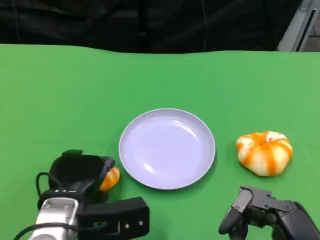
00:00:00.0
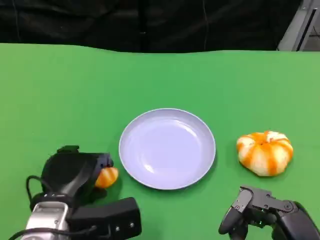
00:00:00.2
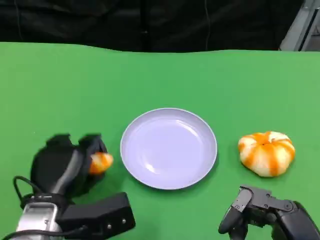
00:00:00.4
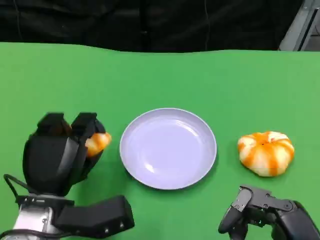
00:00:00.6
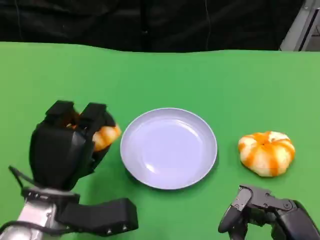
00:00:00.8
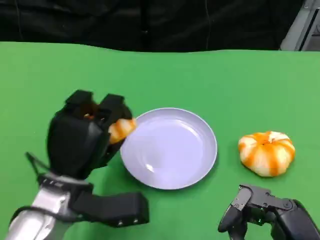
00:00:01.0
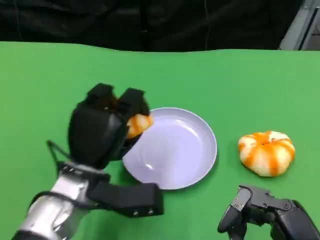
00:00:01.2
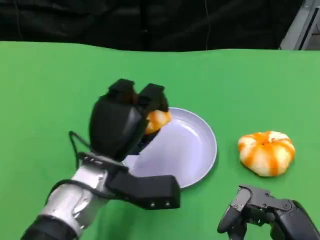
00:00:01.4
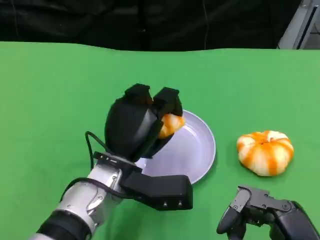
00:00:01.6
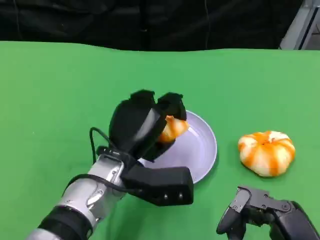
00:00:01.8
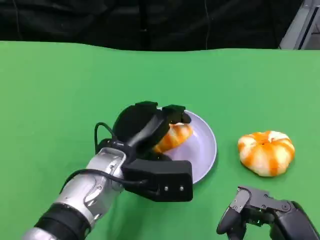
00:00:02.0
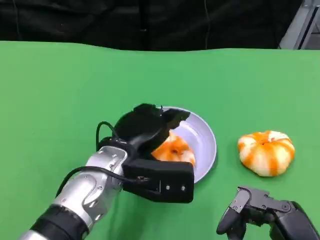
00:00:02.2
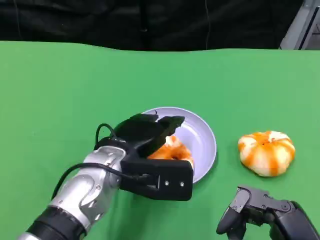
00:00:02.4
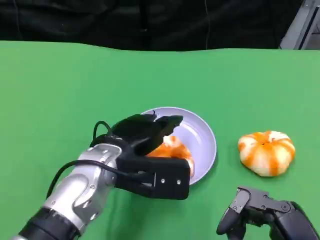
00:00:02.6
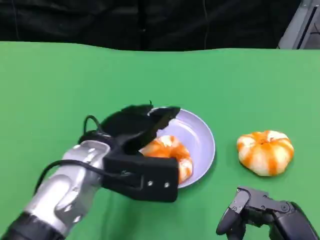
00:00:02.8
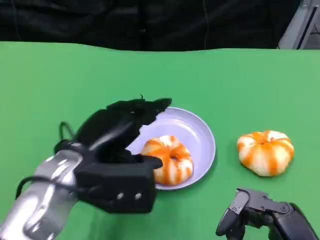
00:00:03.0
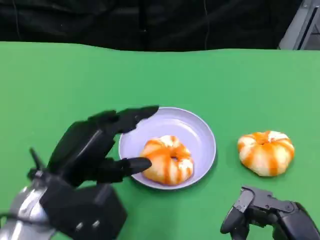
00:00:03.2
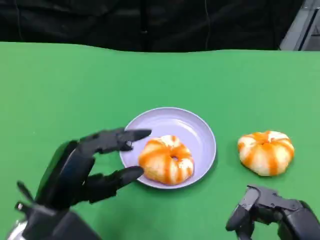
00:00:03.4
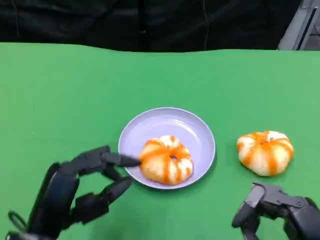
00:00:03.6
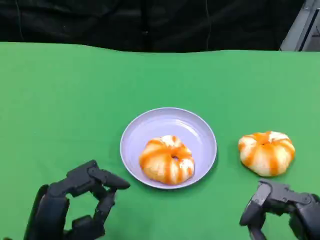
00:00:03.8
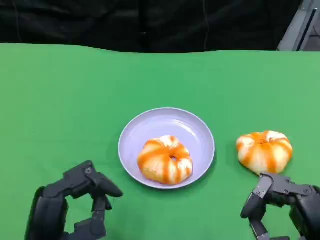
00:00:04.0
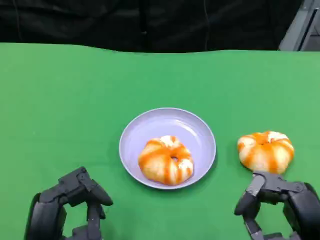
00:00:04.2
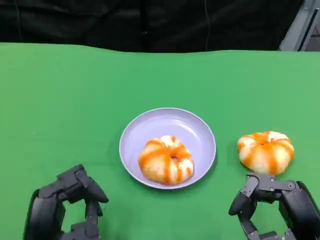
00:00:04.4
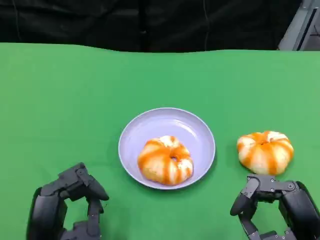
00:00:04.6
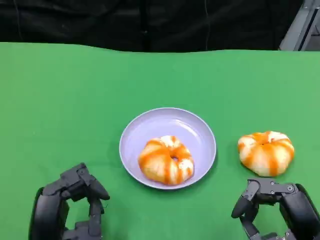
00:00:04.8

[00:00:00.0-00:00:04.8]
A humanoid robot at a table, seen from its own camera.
Task of the whole recording: Grasp the bread from the table and place it into the plate.
00:00:00.0 to 00:00:01.6: The left hand goes some 10 cm to the right.
00:00:01.6 to 00:00:03.2: The left hand travels to the left and backward by about 10 cm.
00:00:03.2 to 00:00:04.8: The right hand changes place by about 5 cm. Meanwhile the left hand travels downward by about 10 cm.

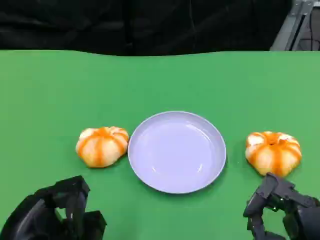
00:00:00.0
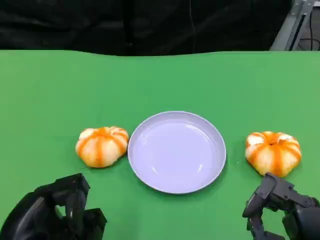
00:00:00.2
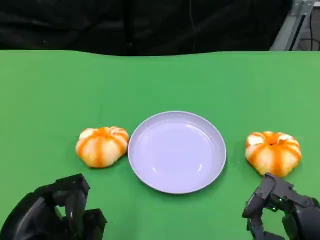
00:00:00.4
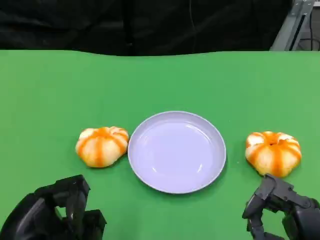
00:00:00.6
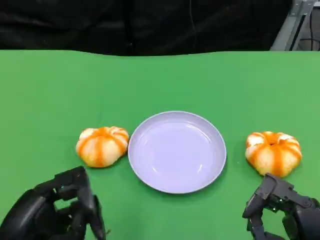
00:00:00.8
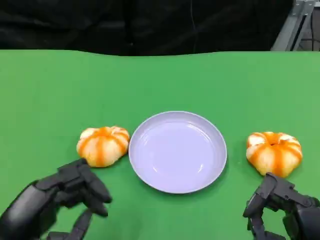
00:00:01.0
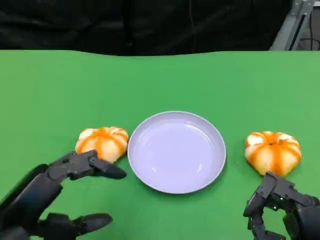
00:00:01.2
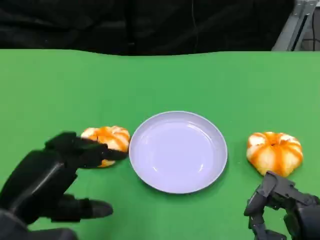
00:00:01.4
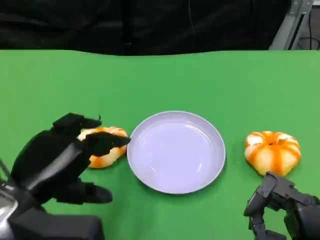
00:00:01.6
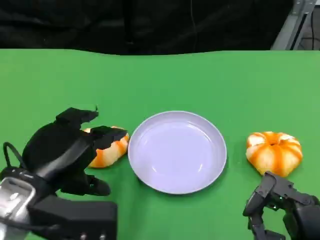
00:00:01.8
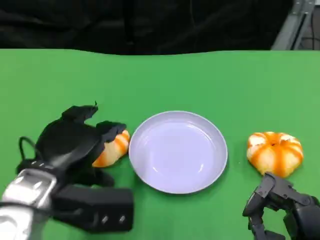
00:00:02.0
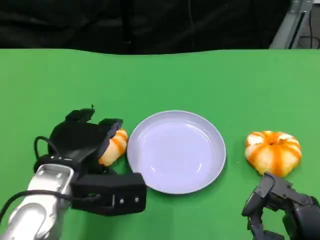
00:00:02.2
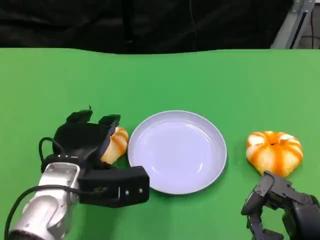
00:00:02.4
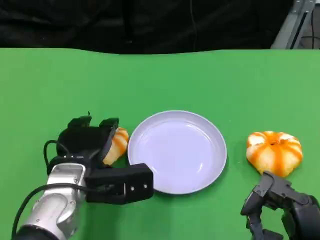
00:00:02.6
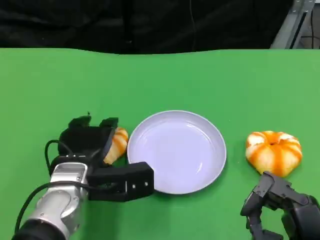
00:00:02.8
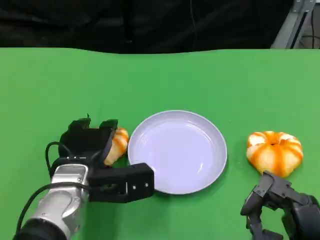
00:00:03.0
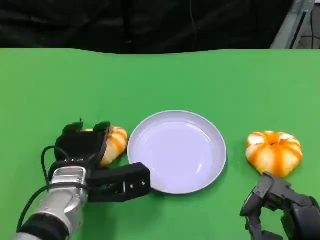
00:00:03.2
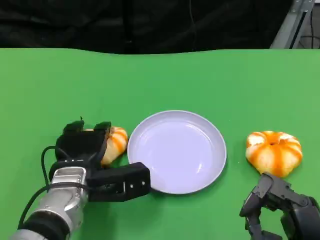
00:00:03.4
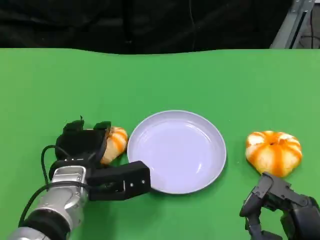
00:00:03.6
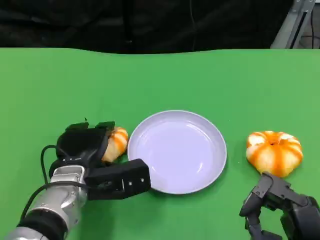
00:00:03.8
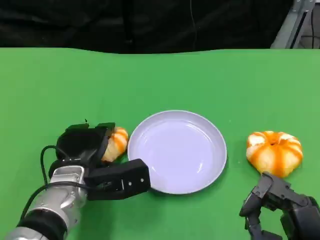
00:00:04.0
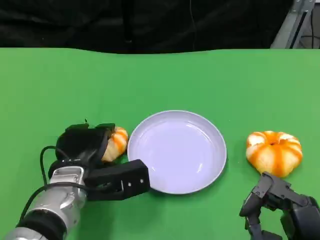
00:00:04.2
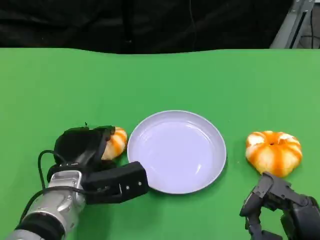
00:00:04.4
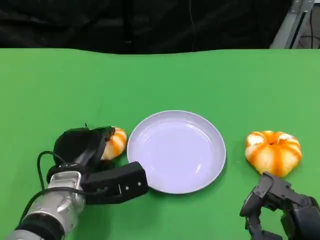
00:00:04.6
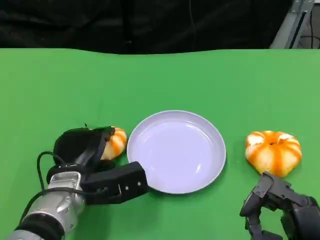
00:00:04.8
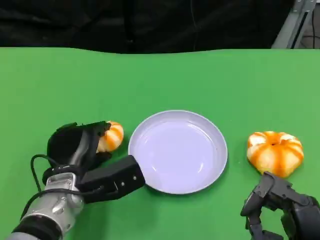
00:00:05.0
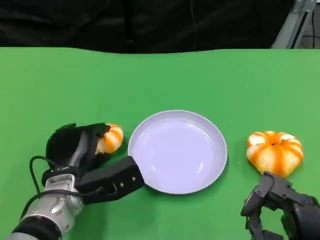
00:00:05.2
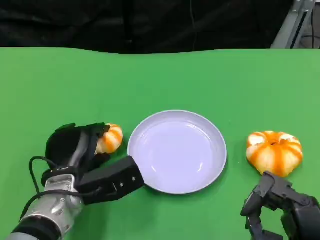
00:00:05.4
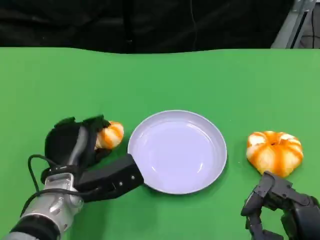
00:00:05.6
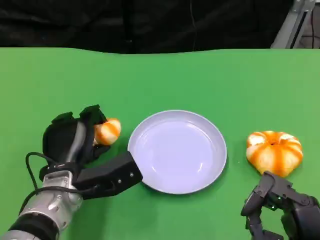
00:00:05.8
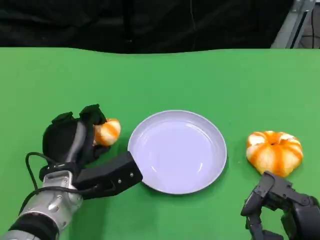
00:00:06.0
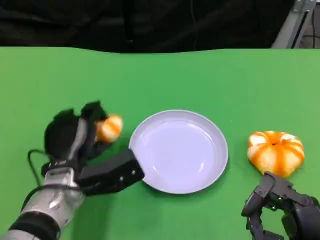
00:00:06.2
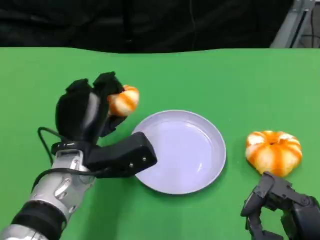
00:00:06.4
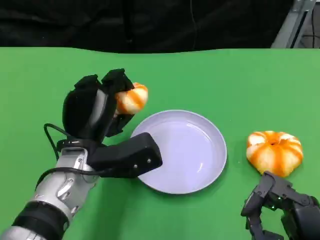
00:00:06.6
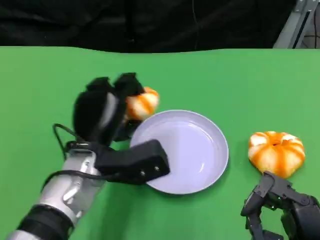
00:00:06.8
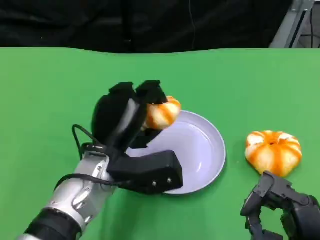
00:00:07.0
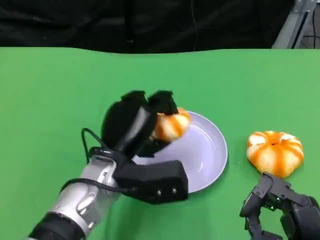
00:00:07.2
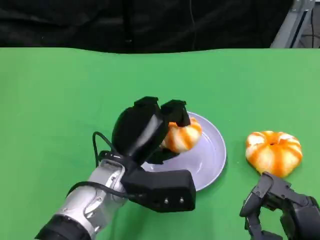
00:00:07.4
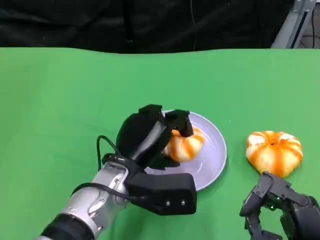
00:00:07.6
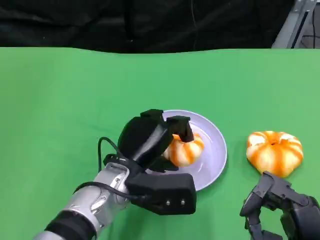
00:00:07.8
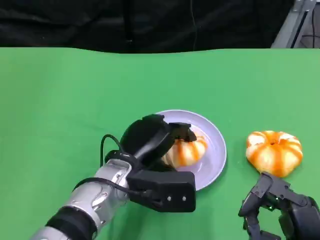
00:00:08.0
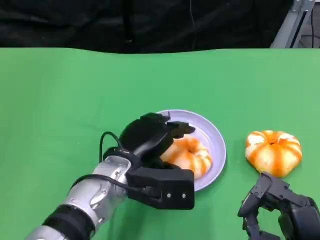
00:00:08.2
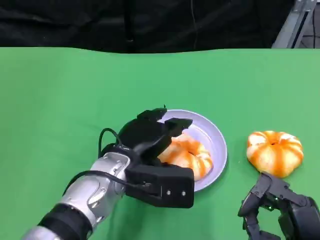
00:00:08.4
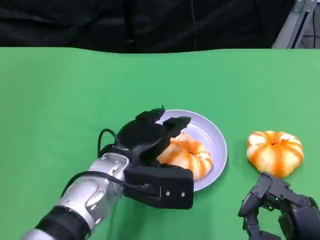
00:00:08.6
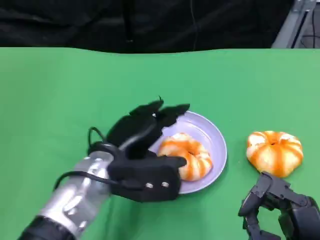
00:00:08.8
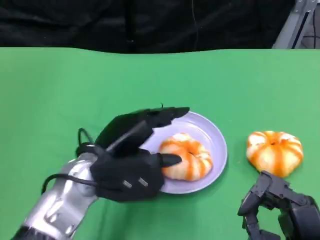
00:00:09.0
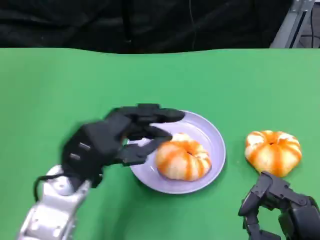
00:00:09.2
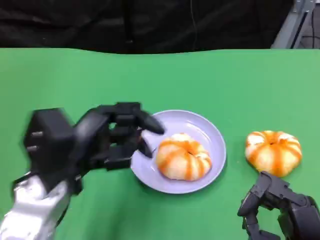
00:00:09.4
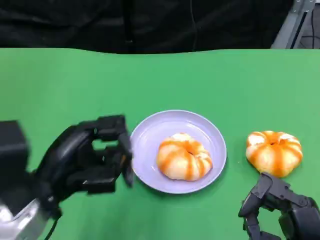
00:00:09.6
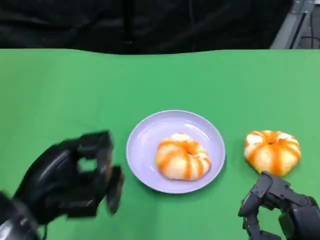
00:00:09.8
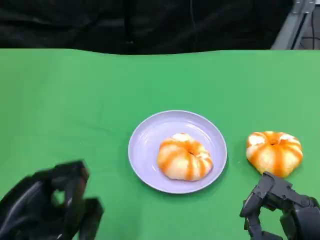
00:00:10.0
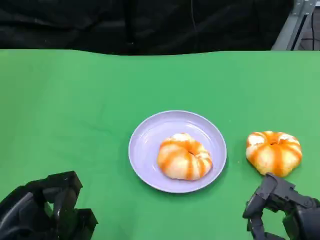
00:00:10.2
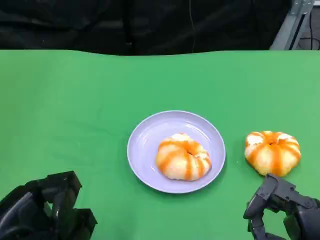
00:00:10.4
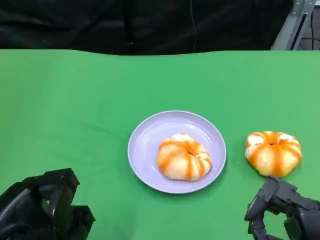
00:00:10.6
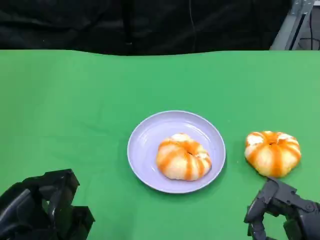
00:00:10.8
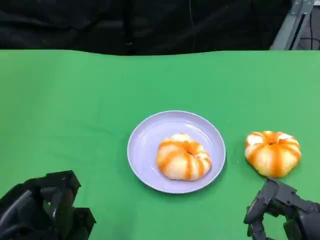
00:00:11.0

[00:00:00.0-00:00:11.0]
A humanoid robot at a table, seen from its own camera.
Task of the whole recording: Grasp the bread from the table and place it into the plate.
00:00:00.0 to 00:00:01.6: The left hand moves forward, about 5 cm.
00:00:01.6 to 00:00:03.2: The left hand shifts approximately 15 cm downward, forward and to the right.
00:00:03.2 to 00:00:04.8: The hands move only a little.
00:00:06.2 to 00:00:07.8: The left hand shifts about 5 cm to the right.
00:00:07.8 to 00:00:09.4: The left hand moves to the left and upward, approximately 10 cm.
00:00:09.4 to 00:00:11.0: The left hand moves backward and to the left, about 10 cm.
